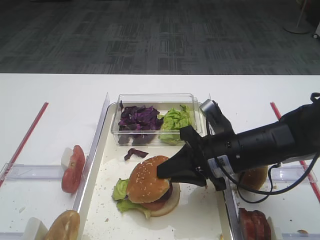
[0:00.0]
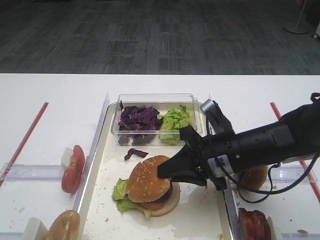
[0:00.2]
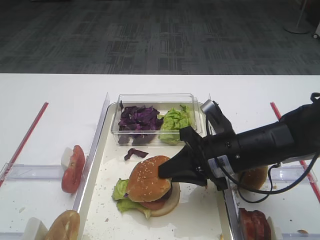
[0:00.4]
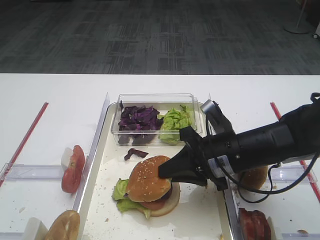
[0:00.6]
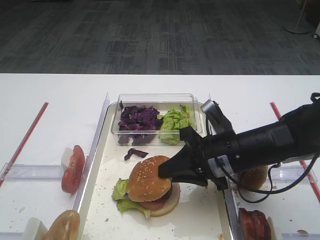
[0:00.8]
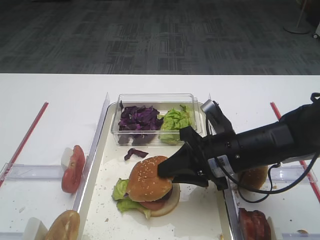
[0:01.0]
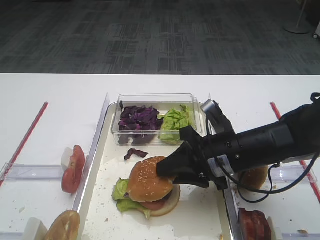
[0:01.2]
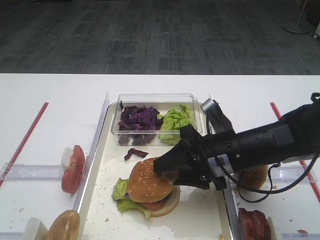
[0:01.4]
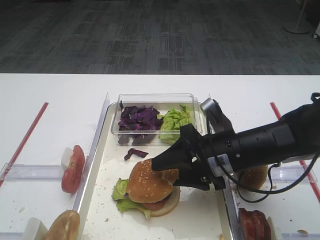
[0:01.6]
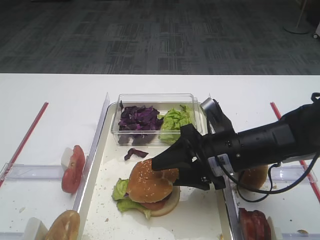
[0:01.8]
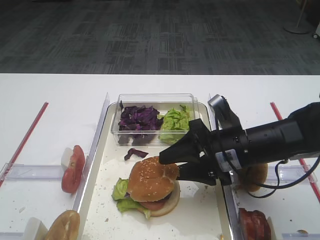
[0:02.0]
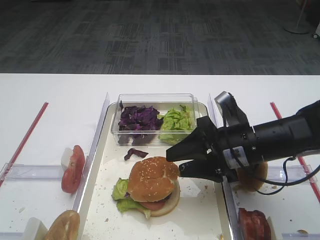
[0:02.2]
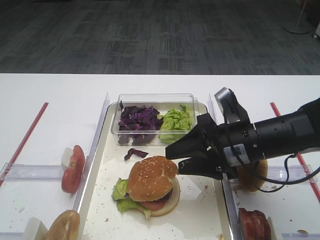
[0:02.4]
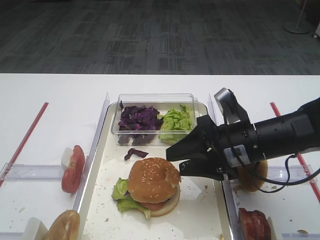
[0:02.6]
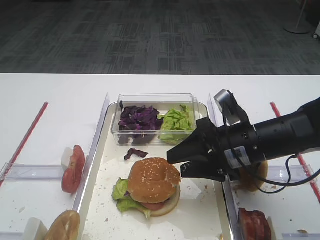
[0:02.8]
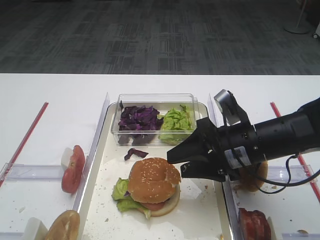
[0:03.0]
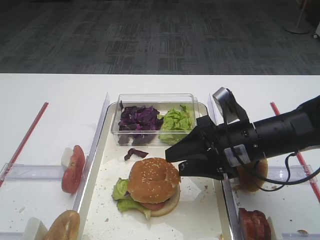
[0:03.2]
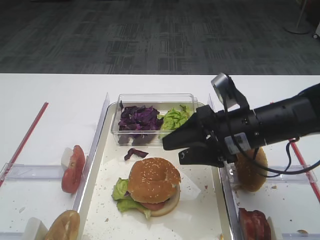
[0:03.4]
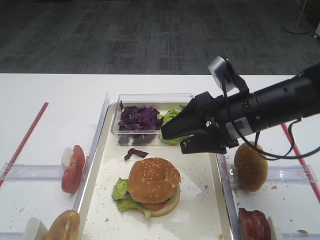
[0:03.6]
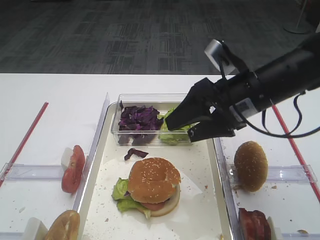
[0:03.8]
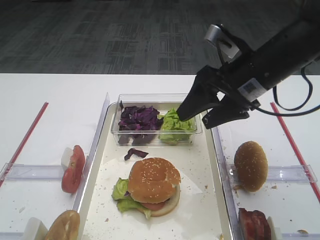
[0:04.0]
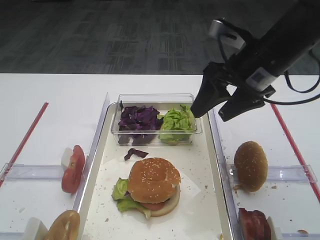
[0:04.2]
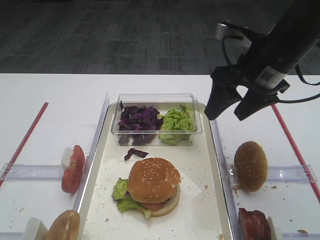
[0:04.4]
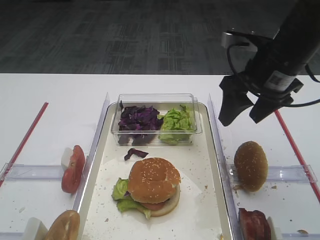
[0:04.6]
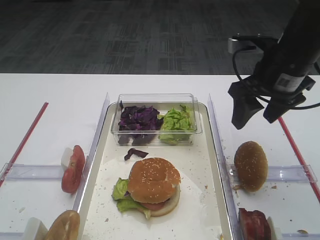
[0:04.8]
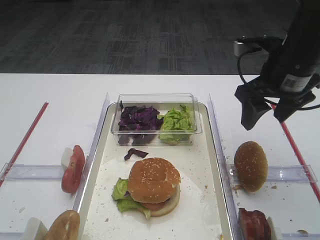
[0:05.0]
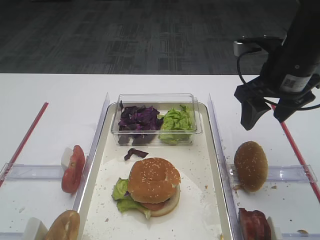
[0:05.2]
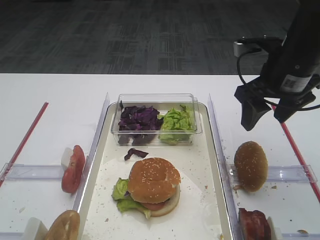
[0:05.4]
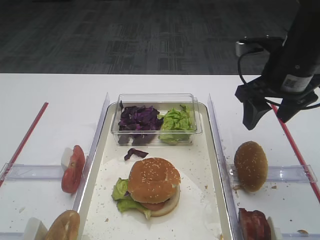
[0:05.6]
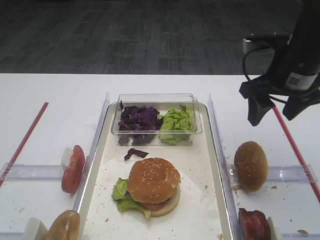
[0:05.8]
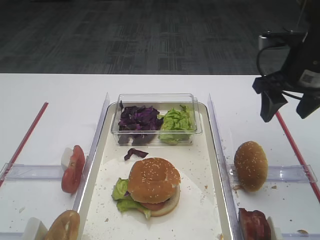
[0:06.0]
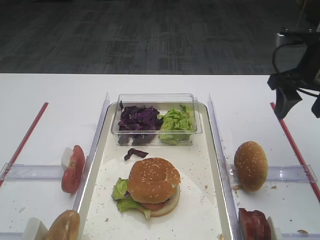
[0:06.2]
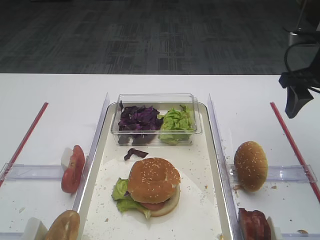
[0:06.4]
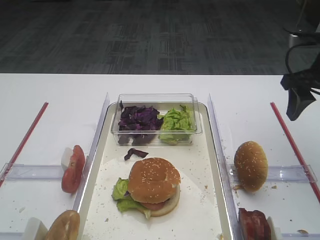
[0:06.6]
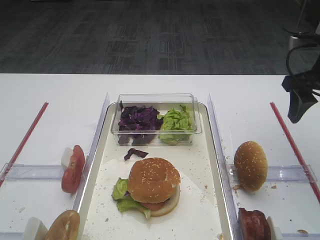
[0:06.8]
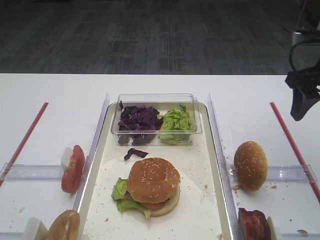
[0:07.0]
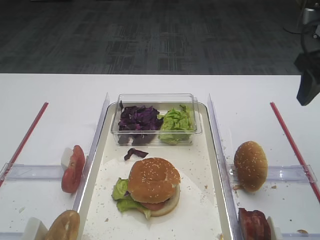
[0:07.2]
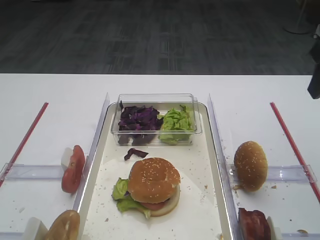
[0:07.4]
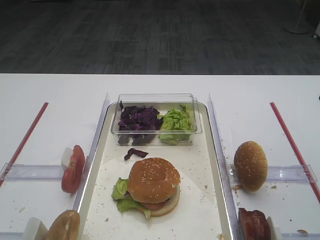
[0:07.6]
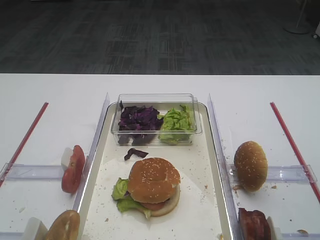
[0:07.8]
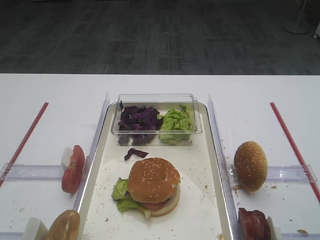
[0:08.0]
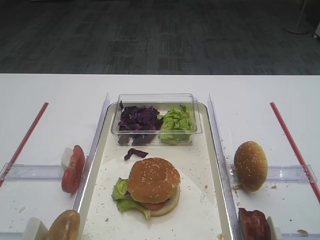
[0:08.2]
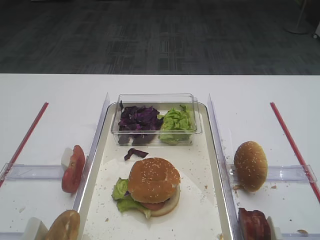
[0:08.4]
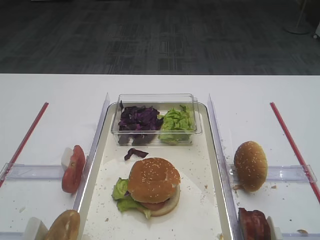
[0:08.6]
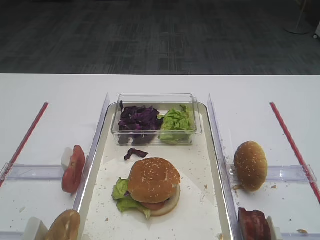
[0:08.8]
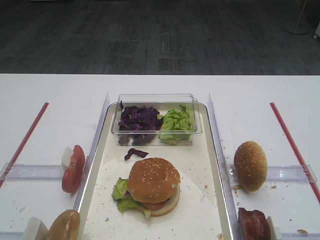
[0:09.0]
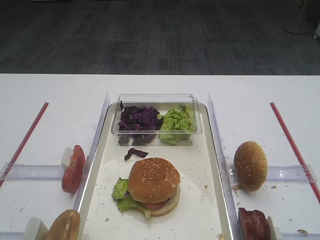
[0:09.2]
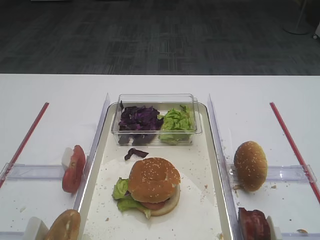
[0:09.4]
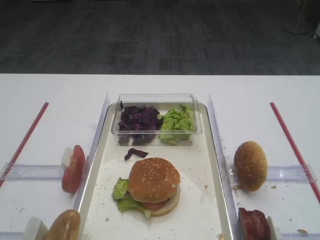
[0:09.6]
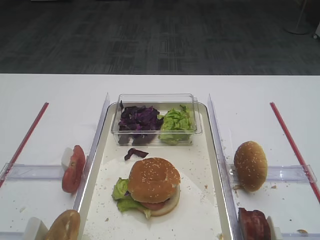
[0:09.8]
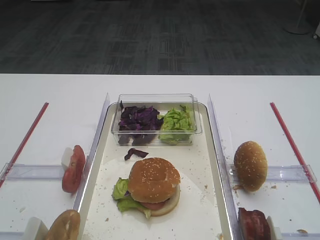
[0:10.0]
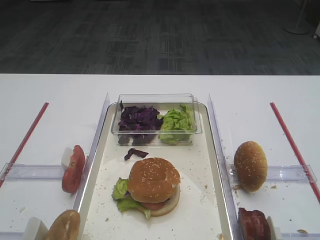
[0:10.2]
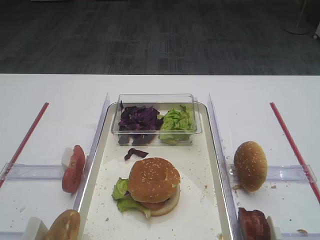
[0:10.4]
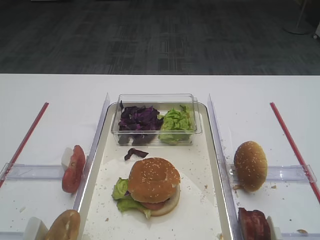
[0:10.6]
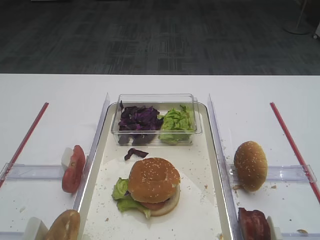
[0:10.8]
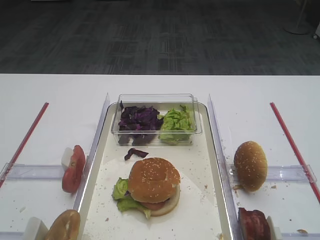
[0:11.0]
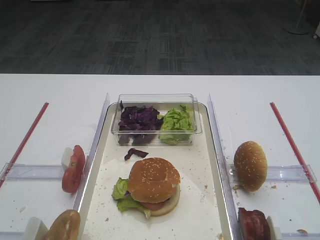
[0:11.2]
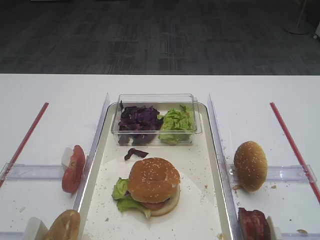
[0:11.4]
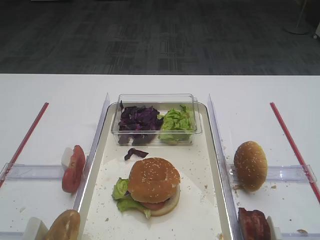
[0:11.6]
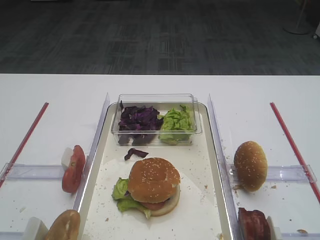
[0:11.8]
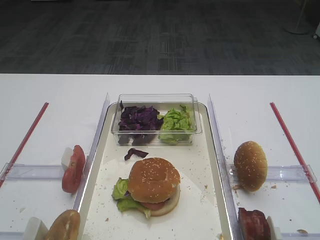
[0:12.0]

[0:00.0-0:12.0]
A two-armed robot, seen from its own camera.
Step, 0:00.0 to 0:03.4: Place the hamburger lid on the purple cabbage with the right gripper.
0:00.0 to 0:01.6: The right gripper opens its fingers.
0:01.6 to 0:03.0: There are only small adjustments of the grippers.
0:03.0 to 0:04.4: The right gripper shifts about 15 cm upward and forward.
0:04.4 to 0:06.0: The right gripper moves to the right, approximately 5 cm.
0:06.0 to 0:07.6: The right gripper heads backward and upward, covering approximately 15 cm.
0:10.4 to 0:12.0: The two grippers keep their place.

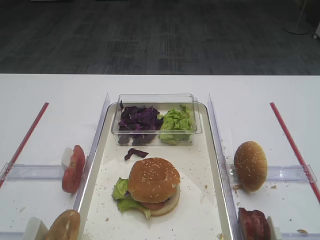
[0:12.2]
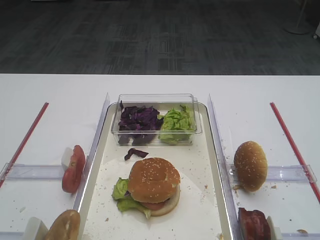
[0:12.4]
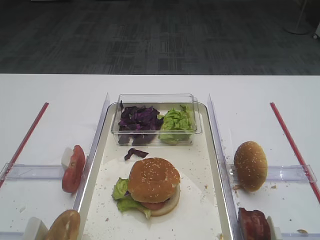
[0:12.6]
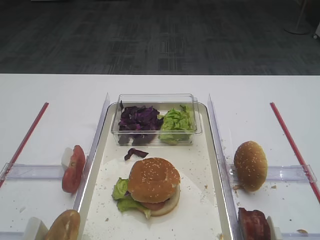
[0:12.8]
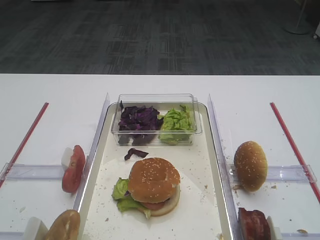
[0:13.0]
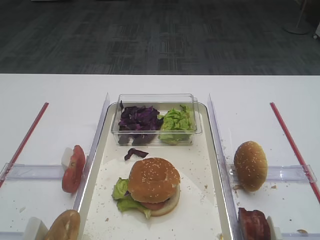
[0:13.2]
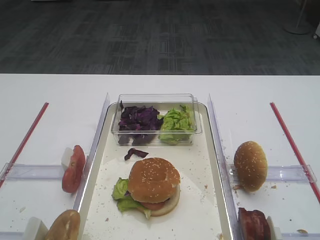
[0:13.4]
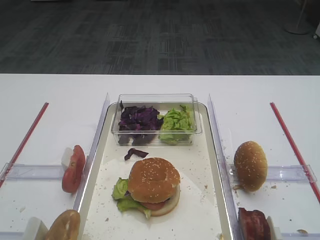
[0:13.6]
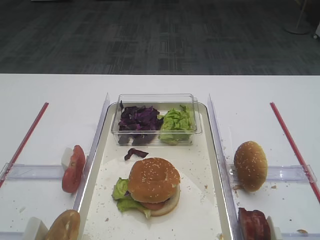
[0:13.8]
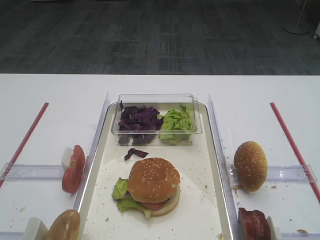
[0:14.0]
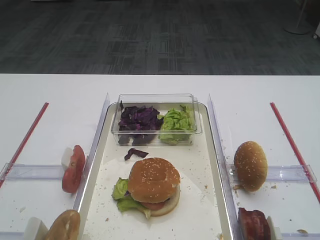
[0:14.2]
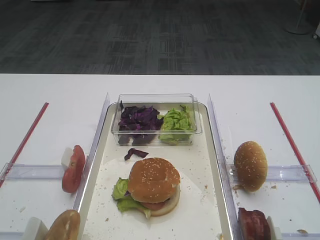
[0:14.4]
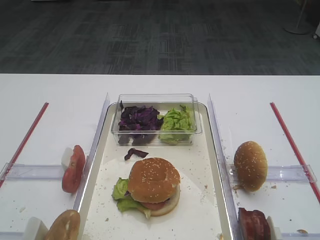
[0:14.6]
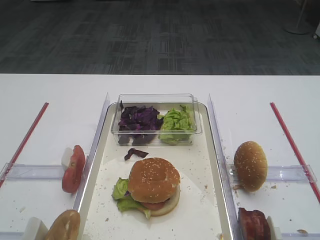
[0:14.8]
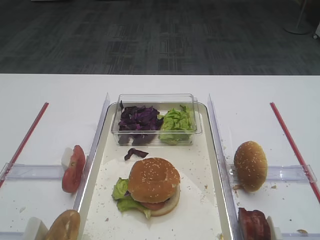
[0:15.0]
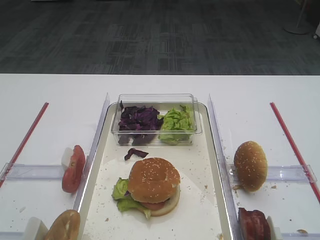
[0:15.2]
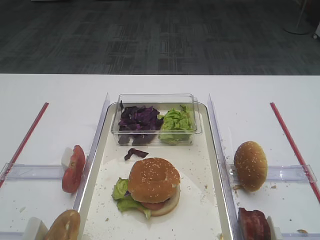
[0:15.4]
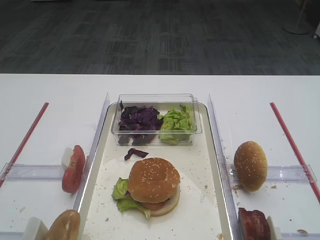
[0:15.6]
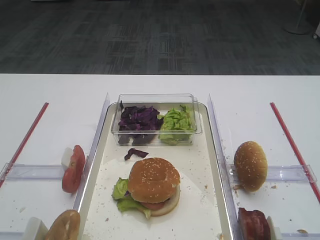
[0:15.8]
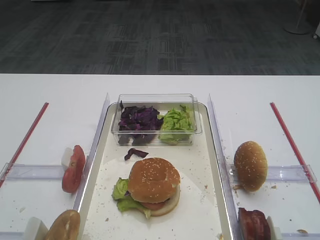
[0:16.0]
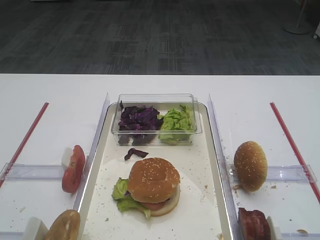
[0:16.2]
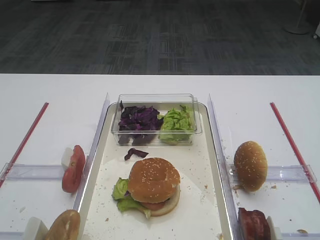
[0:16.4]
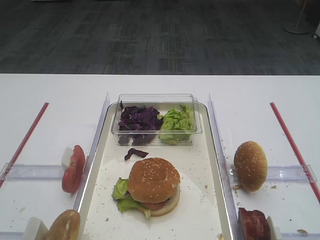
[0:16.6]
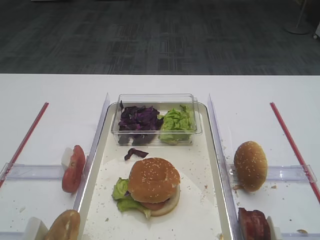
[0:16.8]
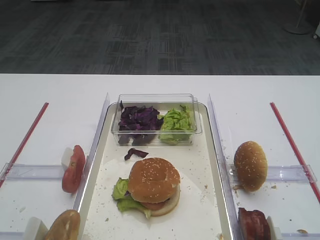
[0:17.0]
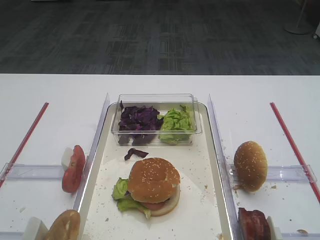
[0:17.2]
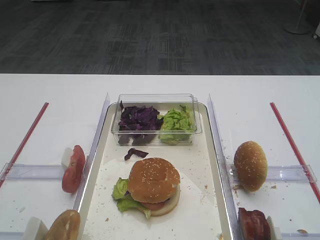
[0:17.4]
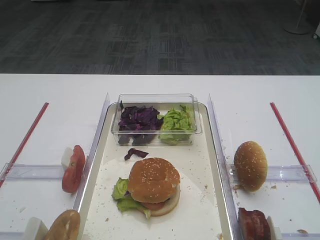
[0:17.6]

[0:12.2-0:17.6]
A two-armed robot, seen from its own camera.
0:12.2 to 0:17.6: Both grippers stay put.

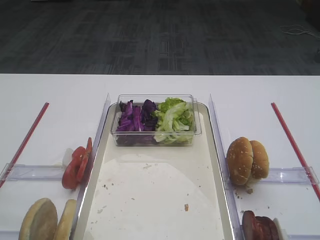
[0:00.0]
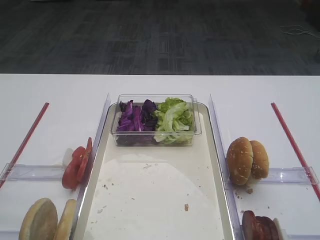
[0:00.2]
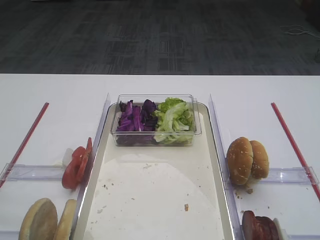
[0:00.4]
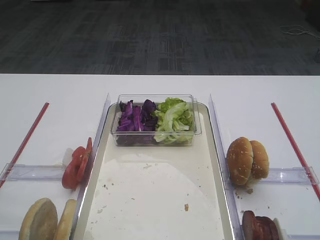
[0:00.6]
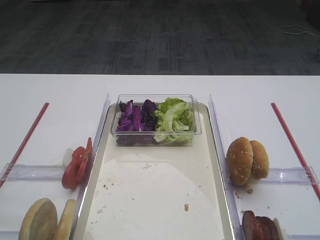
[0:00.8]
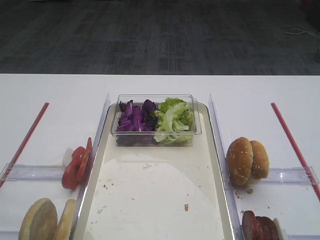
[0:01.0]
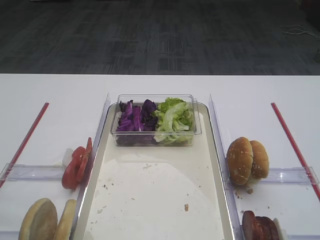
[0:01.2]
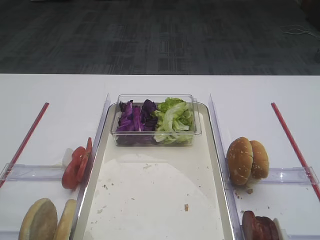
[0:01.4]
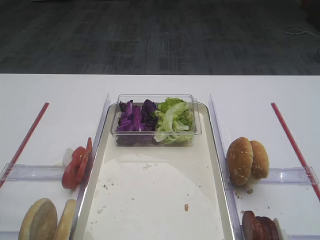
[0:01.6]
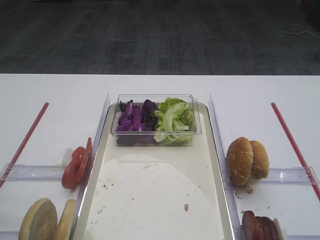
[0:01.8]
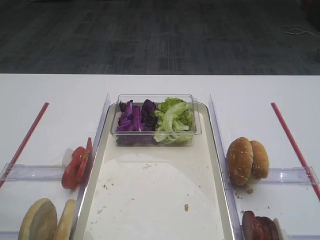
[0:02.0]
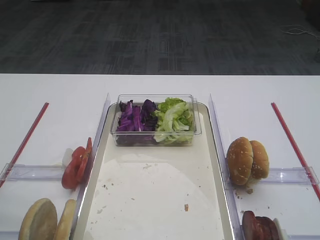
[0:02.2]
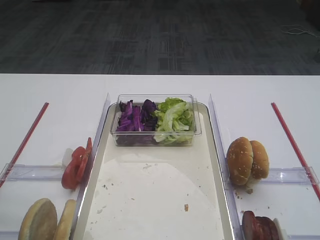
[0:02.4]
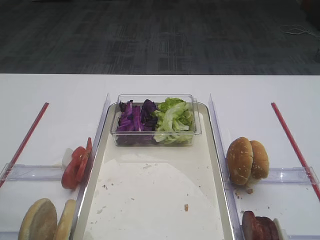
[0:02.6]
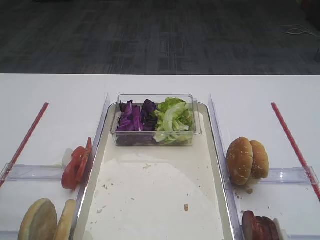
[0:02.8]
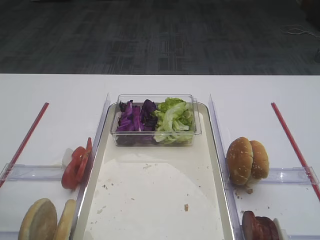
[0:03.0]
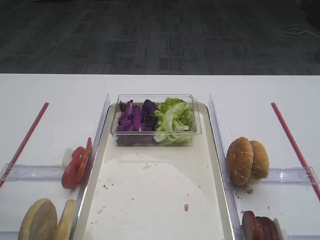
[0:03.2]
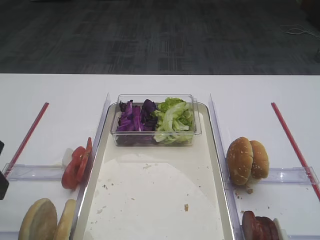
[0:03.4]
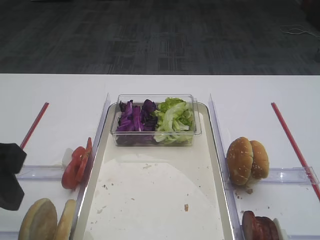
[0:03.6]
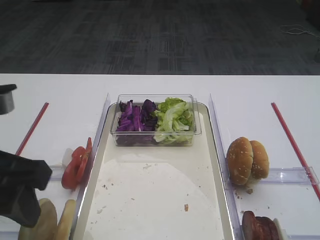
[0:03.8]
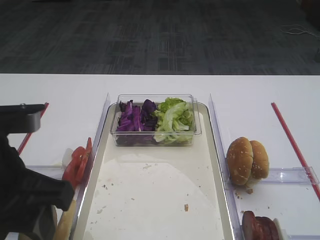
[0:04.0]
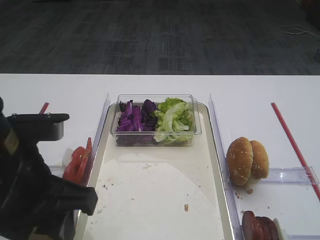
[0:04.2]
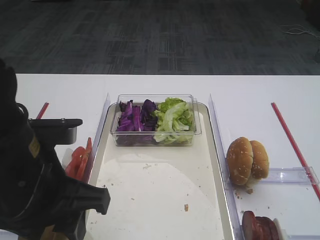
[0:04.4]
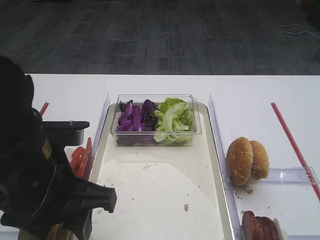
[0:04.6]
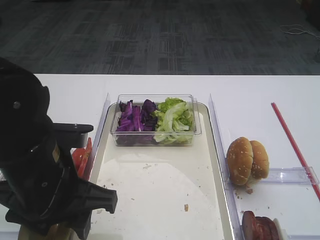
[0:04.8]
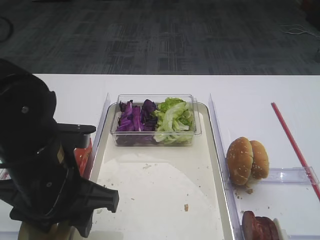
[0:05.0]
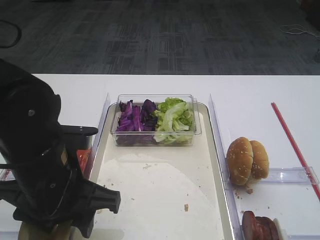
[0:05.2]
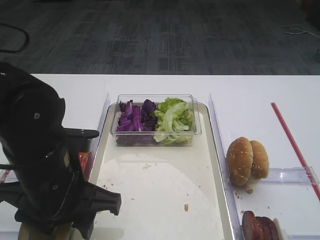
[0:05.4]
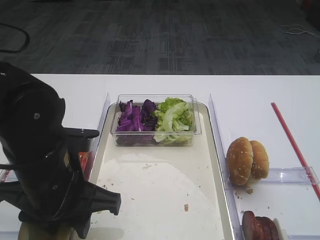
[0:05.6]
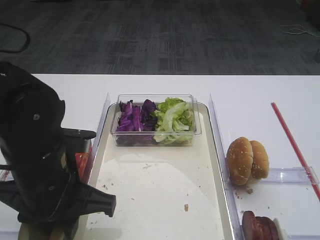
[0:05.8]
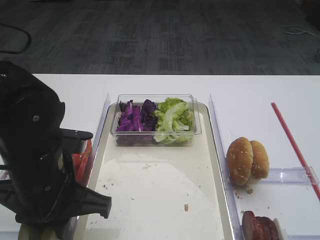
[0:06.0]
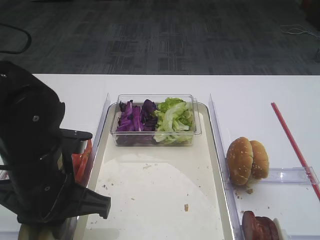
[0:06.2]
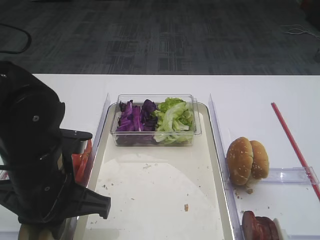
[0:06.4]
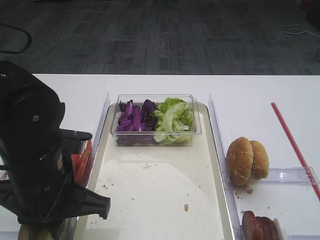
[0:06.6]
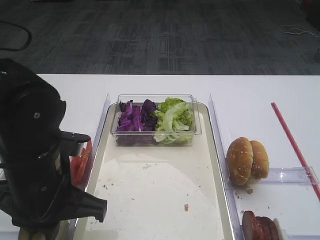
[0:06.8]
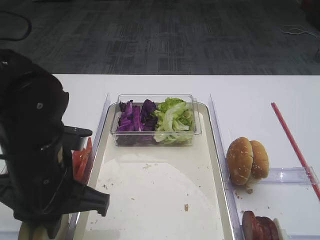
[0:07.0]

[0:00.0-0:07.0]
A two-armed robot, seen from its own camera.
0:02.8 to 0:04.2: The left gripper heads to the right, covering about 10 cm.
0:04.2 to 0:05.6: The left gripper moves downward, roughly 5 cm.
0:05.6 to 0:07.0: The left gripper closes.
